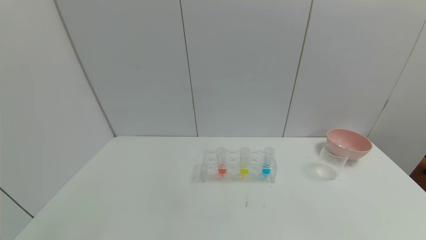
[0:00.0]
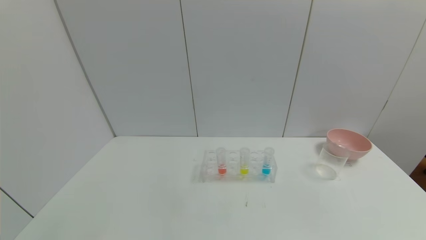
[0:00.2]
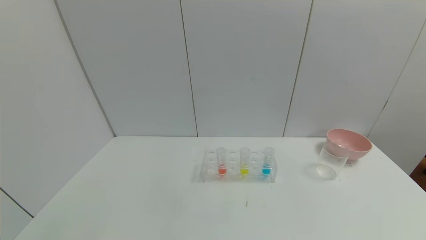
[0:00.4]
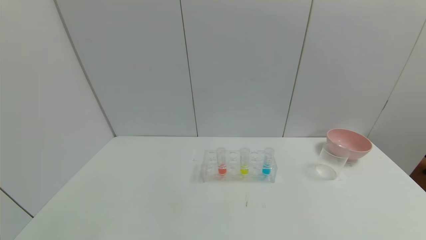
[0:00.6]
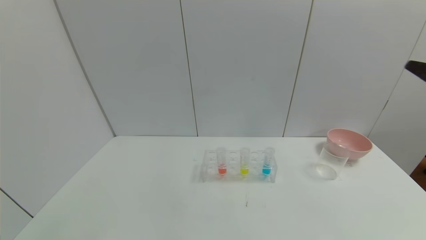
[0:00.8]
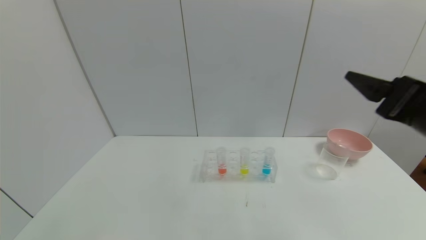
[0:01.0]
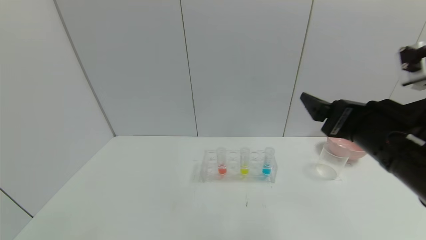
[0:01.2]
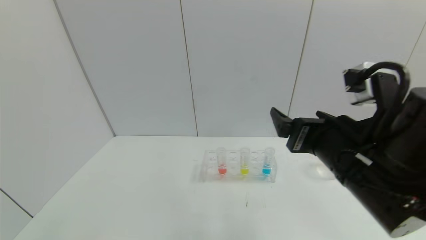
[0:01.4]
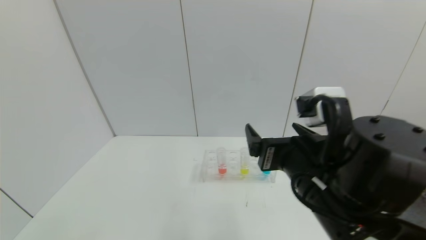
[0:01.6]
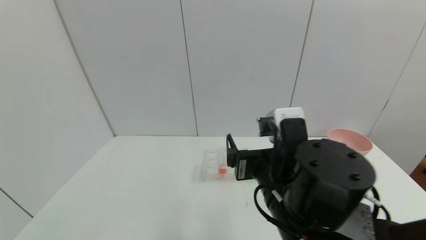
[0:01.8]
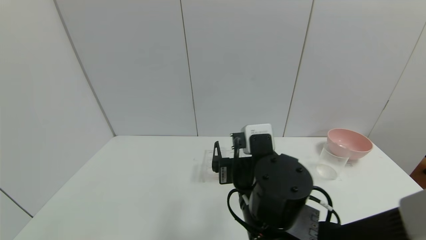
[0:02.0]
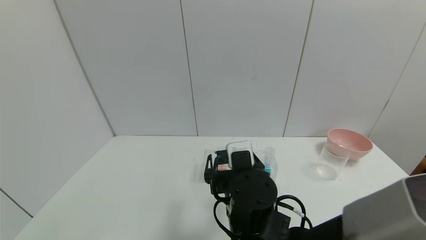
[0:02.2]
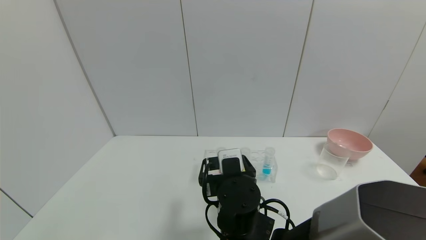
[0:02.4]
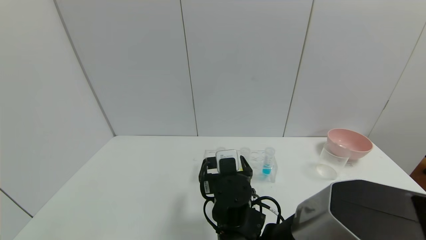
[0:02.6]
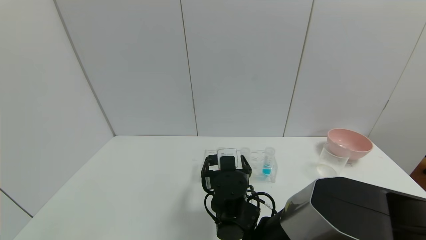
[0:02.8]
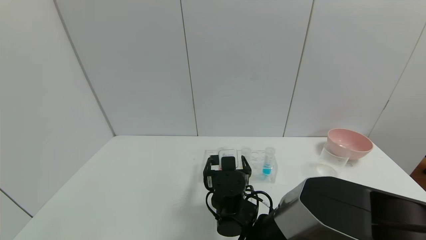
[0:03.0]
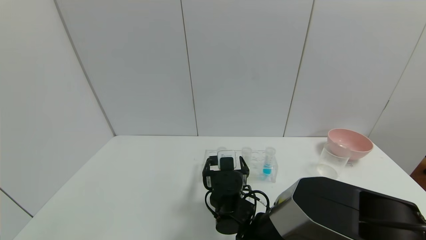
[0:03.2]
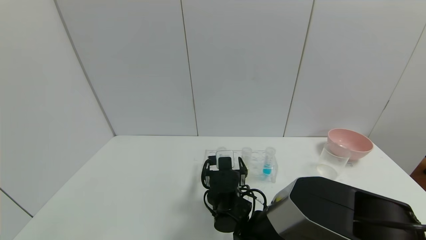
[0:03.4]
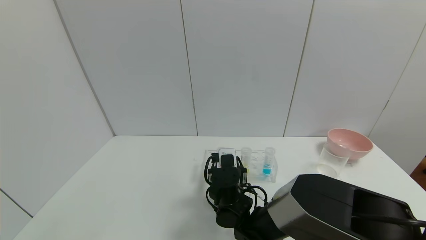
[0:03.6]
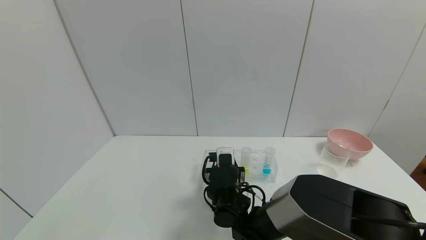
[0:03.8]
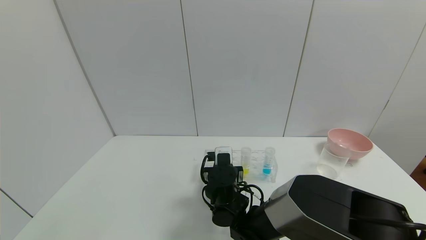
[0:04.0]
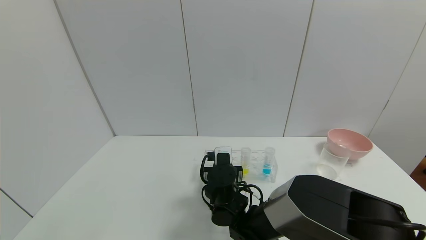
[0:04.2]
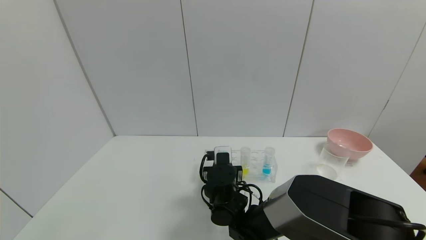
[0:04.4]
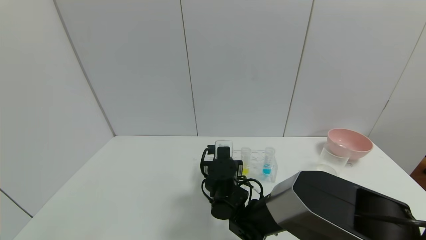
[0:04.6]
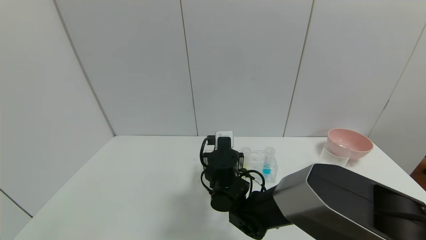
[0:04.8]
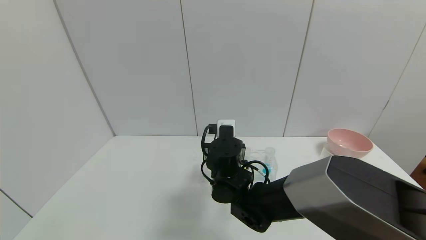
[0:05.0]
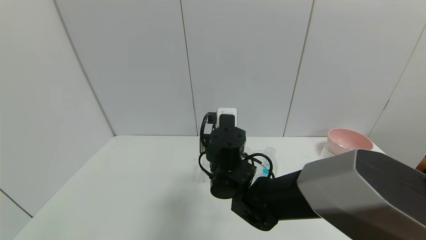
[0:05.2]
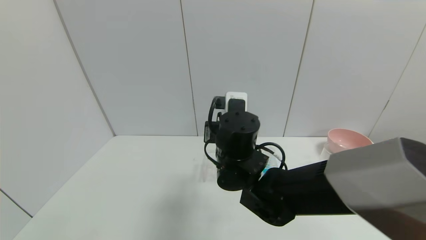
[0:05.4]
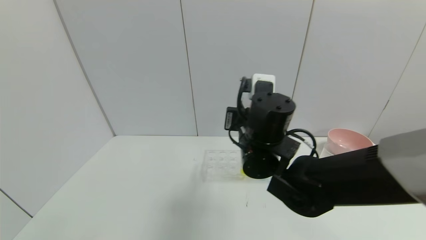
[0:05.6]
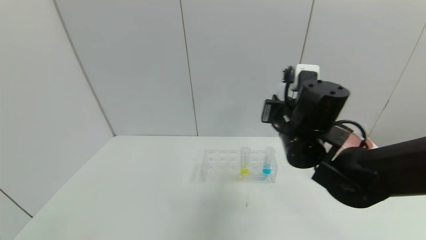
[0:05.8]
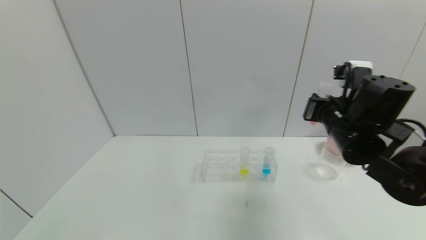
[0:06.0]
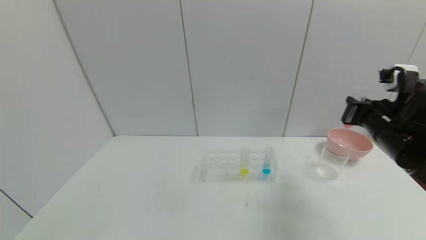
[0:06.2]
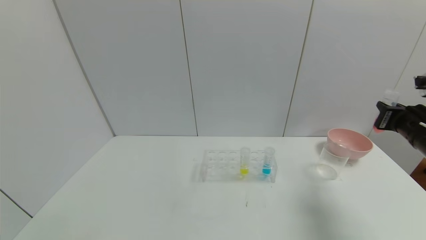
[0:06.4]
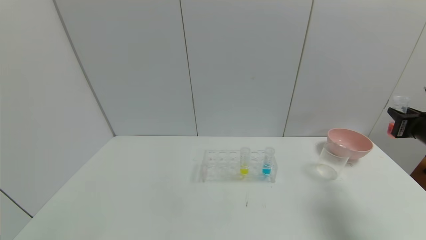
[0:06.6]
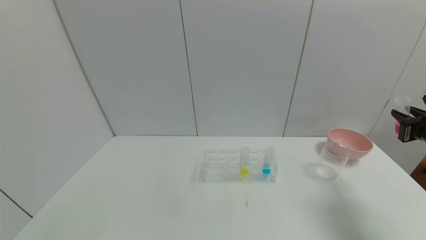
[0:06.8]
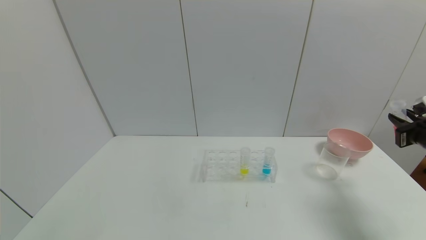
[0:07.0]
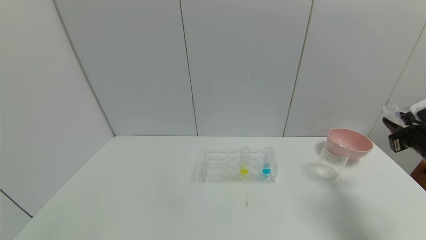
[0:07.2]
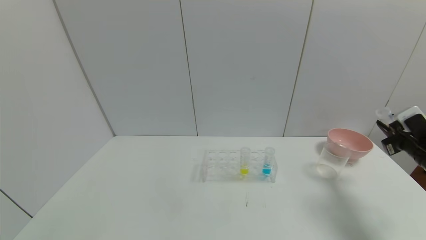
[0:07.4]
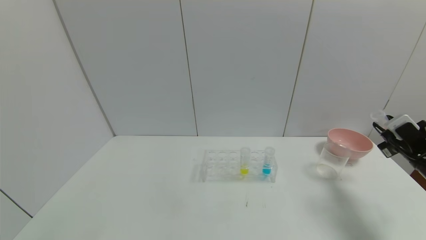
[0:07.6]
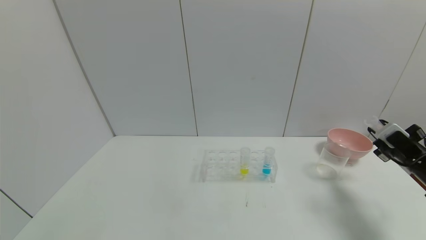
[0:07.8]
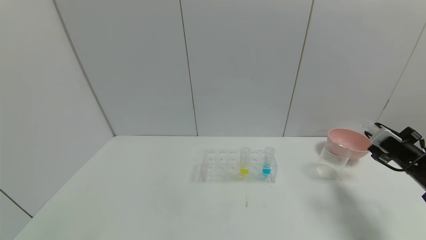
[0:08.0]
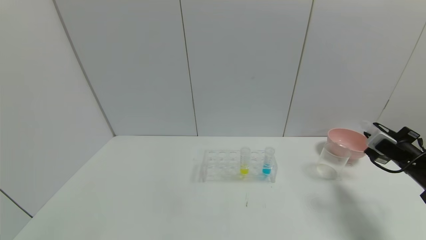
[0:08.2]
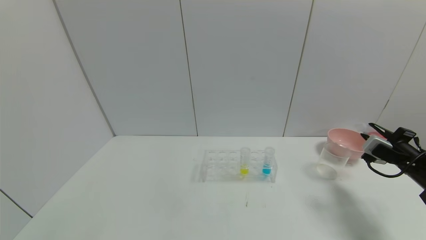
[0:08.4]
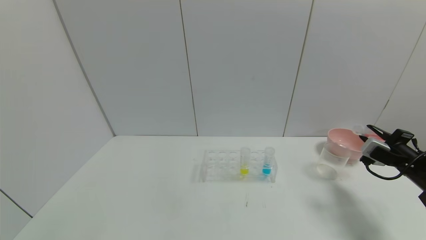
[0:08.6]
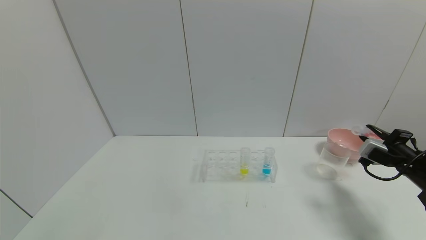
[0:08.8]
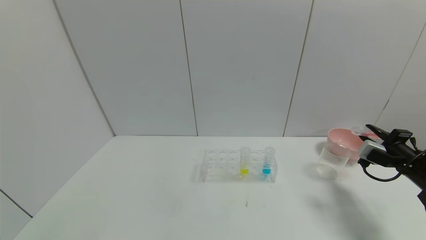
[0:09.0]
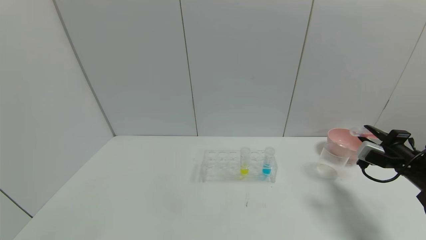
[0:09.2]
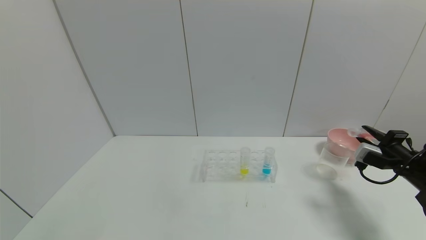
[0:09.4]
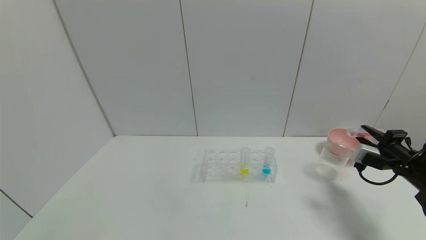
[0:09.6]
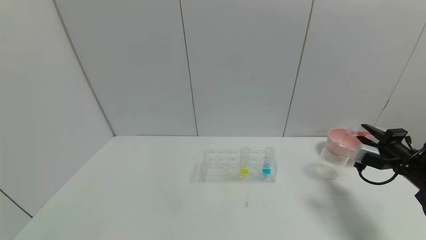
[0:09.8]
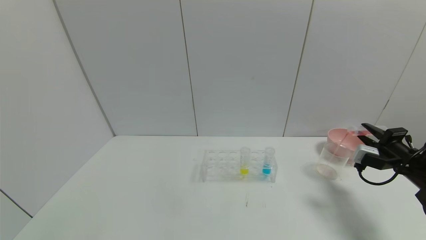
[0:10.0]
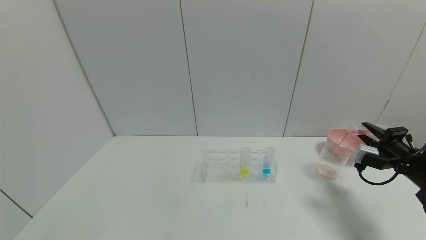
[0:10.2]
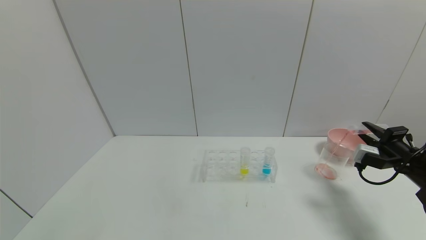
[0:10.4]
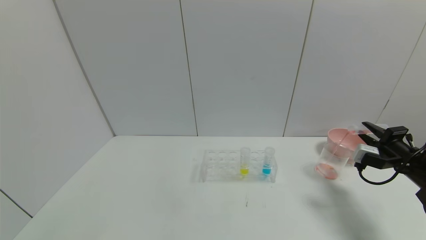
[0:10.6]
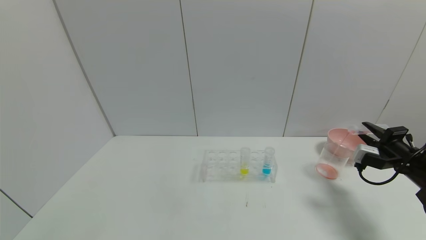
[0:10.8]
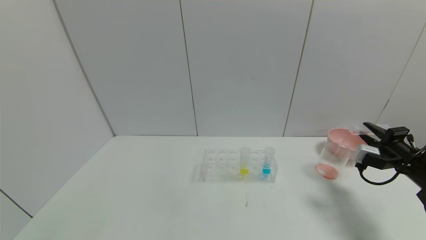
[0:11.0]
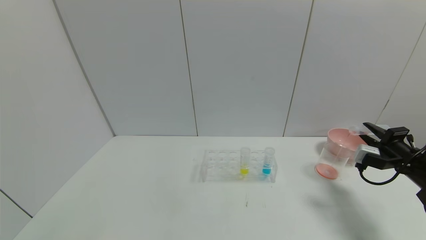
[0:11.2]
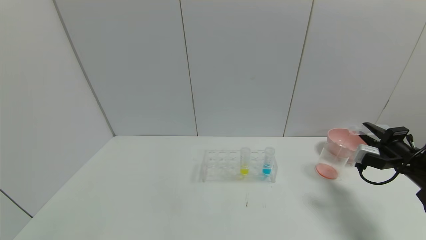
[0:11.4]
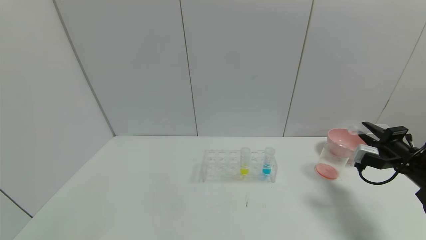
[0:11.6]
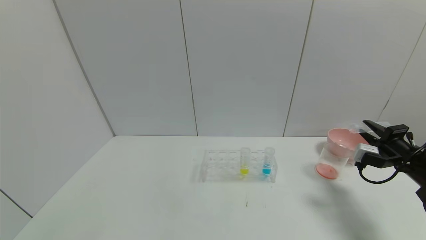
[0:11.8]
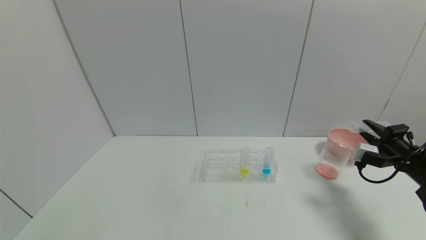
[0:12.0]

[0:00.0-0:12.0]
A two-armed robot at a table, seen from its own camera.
Task of the whole recording: pick up the test tube with yellow pigment and the test tube with red pigment by grippers and pour them into the beaker.
Step, 0:00.0 to 0:07.0: Pick up the test tube containing the red reagent with right gripper.
0:00.0 to 0:01.6: The right gripper is displaced to the left and forward by approximately 35 cm.
0:01.6 to 0:03.0: The right gripper is displaced downward, forward and to the left by about 20 cm.
0:03.0 to 0:04.4: The right gripper closes its fingers.
0:04.4 to 0:06.0: The right gripper goes about 30 cm to the right and upward.
0:06.0 to 0:07.6: The right gripper travels to the right and downward by some 20 cm.
0:09.0 to 0:10.4: There are only small adjustments of the grippers.
0:10.4 to 0:12.0: Neither gripper changes place.

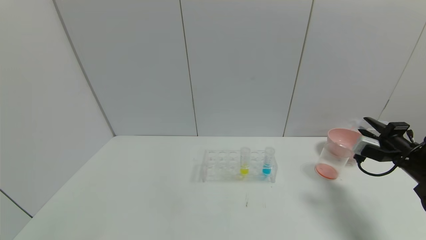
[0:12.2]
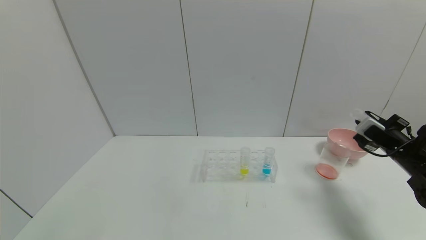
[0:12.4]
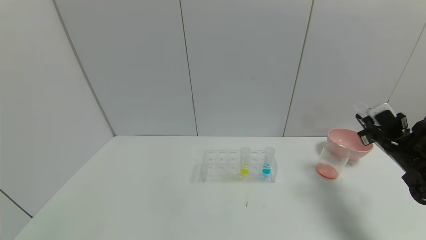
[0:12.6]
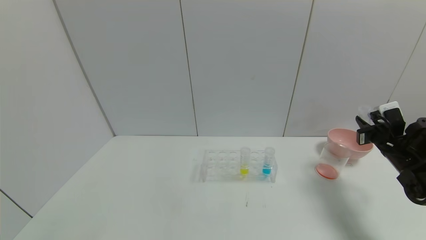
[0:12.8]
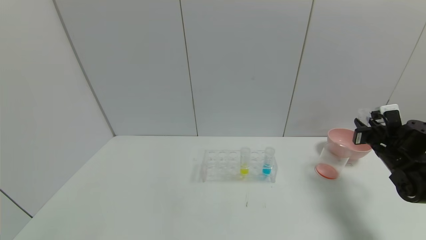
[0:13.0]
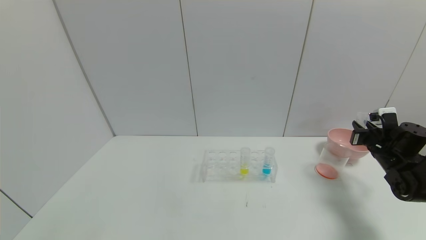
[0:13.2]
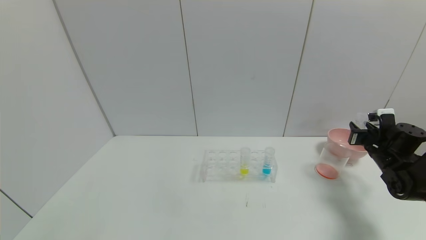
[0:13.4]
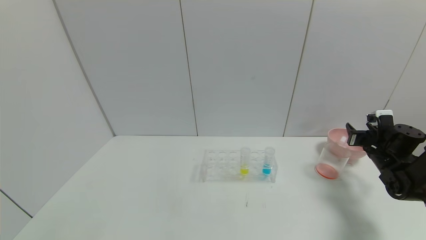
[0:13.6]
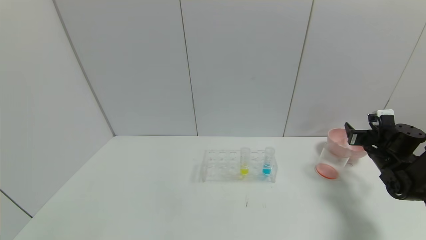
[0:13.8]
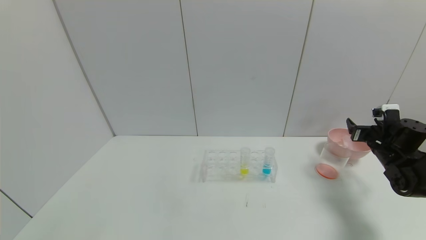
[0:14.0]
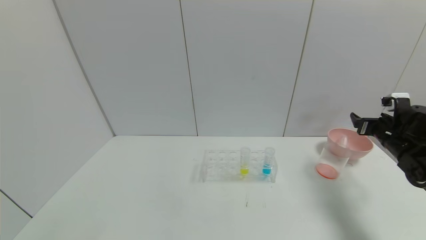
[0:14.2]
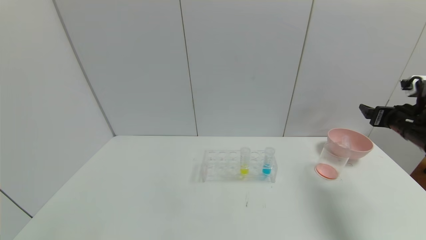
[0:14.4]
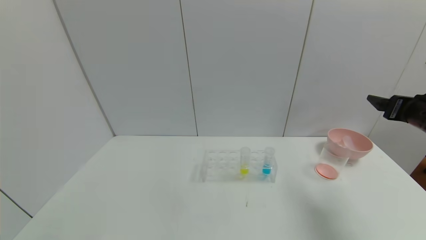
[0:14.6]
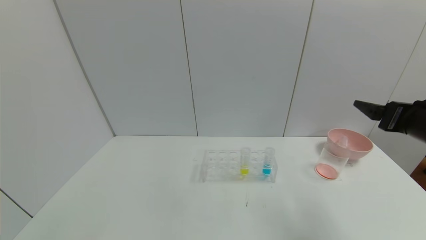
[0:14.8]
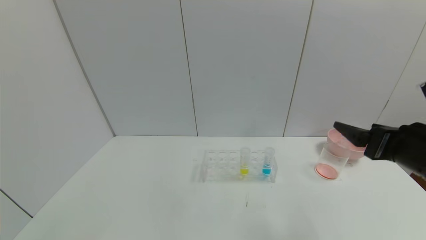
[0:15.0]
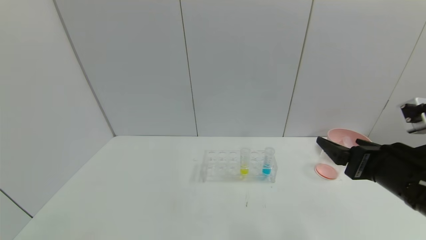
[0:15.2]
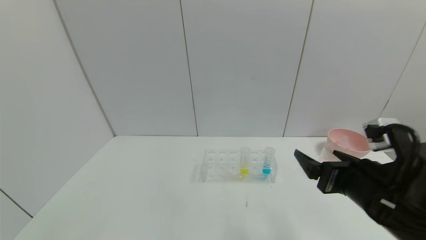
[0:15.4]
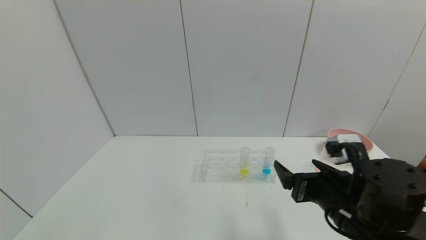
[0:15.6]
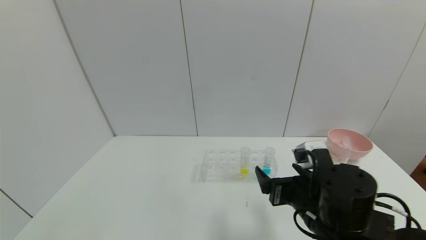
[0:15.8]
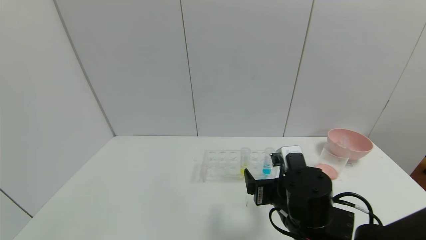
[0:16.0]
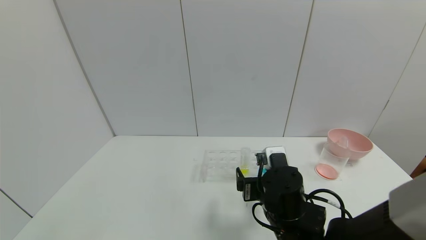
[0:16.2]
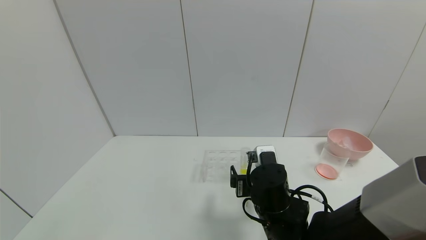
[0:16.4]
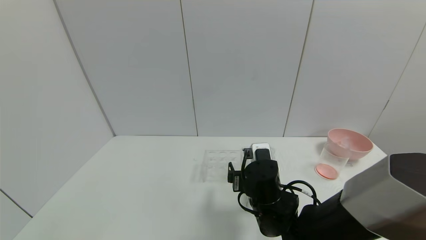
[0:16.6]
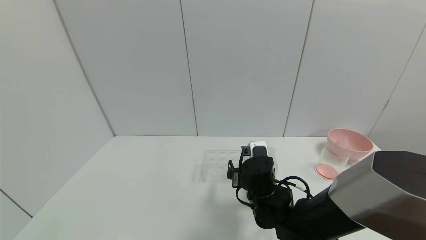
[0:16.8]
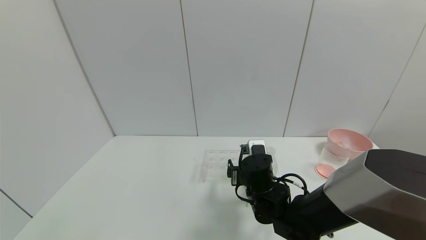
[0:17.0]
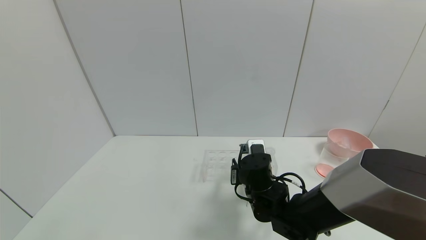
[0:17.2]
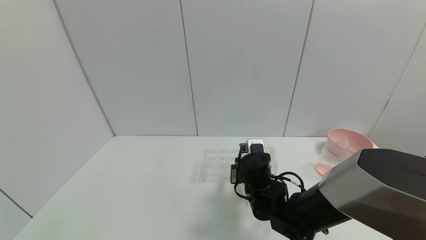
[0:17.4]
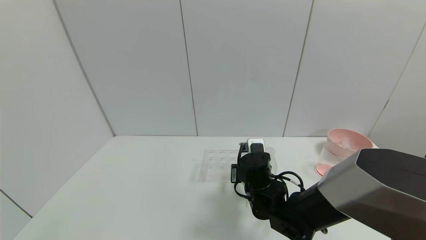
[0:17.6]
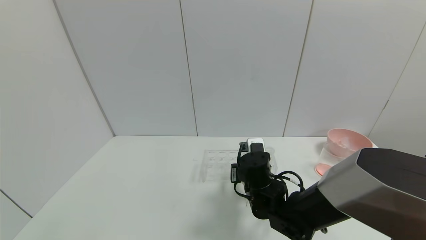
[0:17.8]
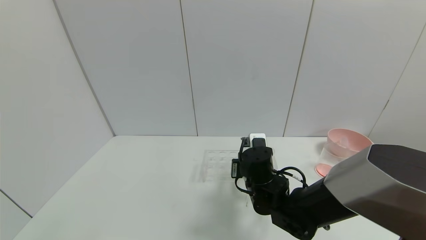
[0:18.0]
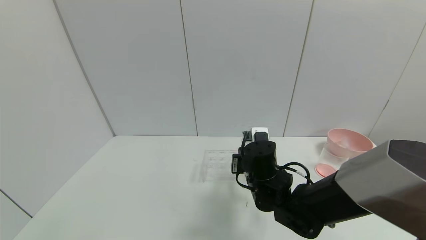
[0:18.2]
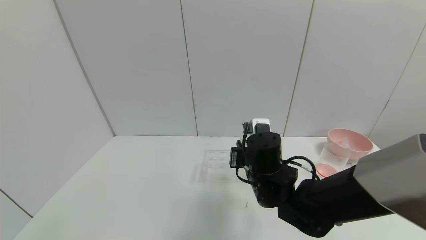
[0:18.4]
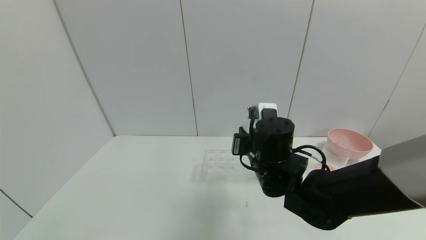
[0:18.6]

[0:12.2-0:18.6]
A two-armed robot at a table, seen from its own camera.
Task of the whole recording: pick up the test tube with yellow pigment and the test tube with red pigment by grippers and pour them into the beaker.
Step, 0:13.0 to 0:15.4: Place the test tube into the bowl with right gripper.
0:12.2 to 0:13.8: The right gripper shifts roughly 5 cm forward, and opens.
0:13.8 to 0:15.4: The right gripper moves to the left and backward, roughly 30 cm.
0:15.4 to 0:17.0: The right gripper shifts some 20 cm to the left, forward and downward.
0:17.0 to 0:18.6: The right gripper travels upward by approximately 10 cm, and closes up.
